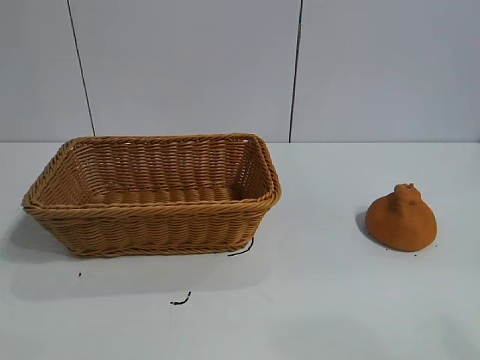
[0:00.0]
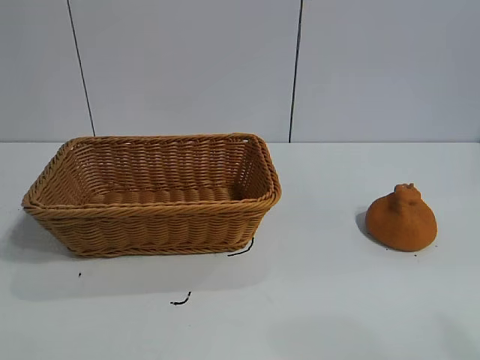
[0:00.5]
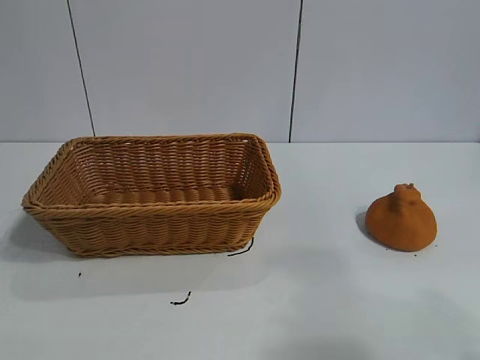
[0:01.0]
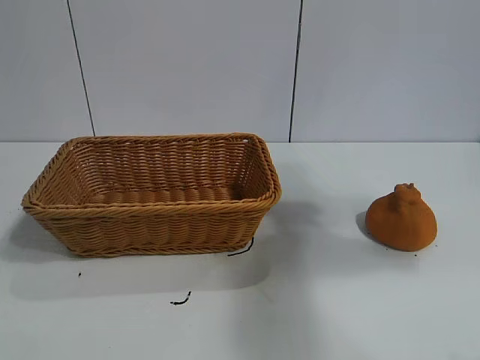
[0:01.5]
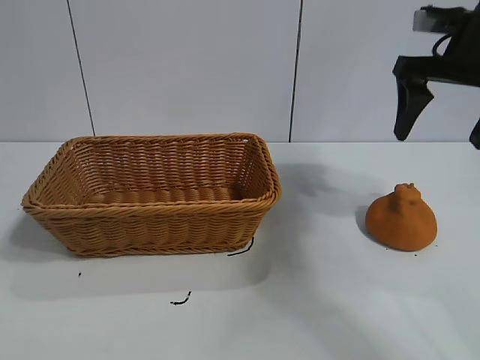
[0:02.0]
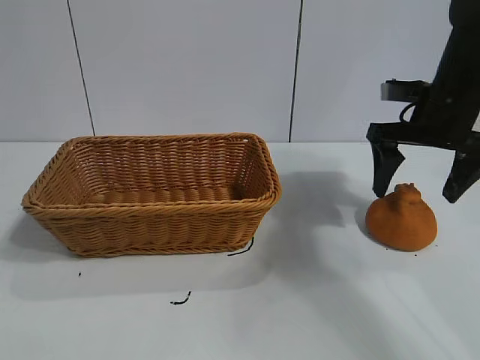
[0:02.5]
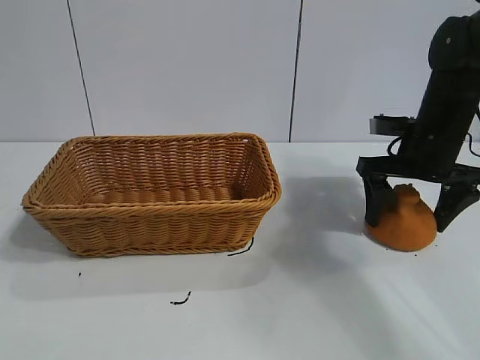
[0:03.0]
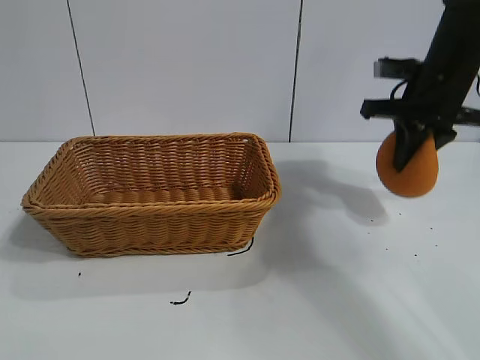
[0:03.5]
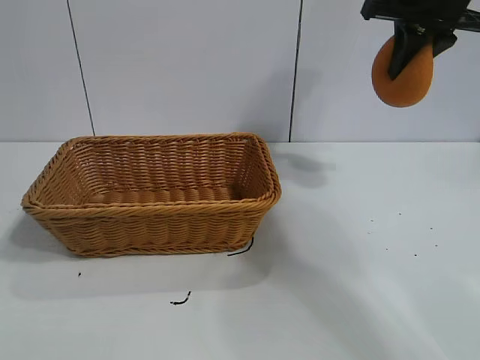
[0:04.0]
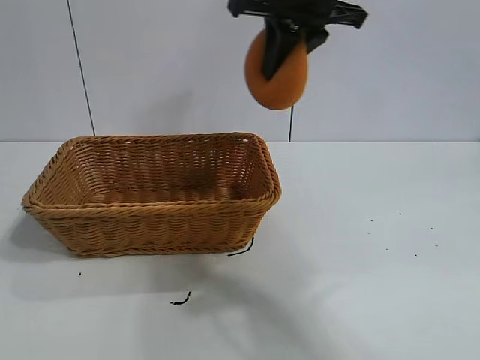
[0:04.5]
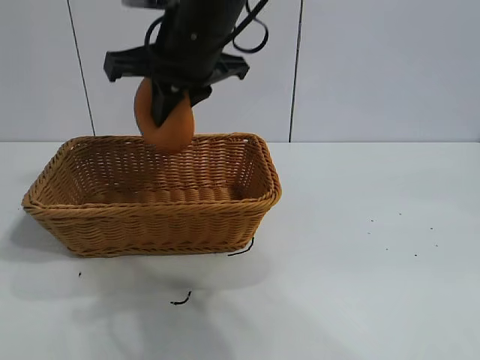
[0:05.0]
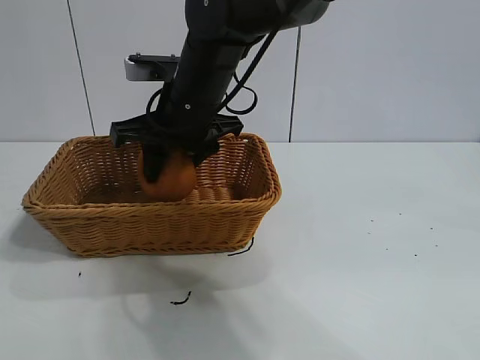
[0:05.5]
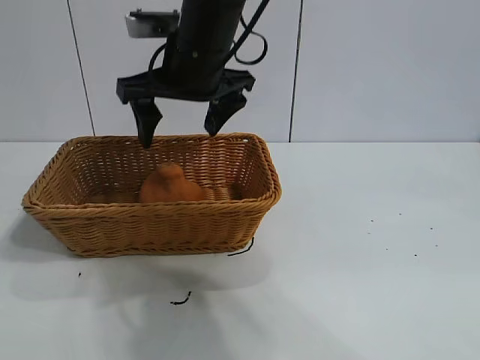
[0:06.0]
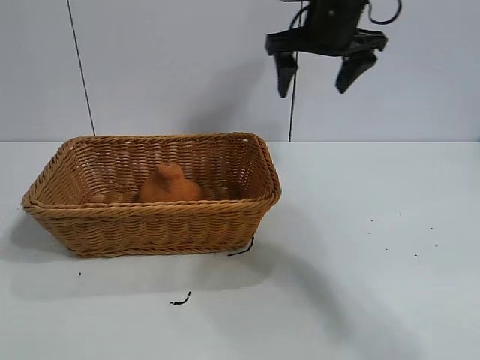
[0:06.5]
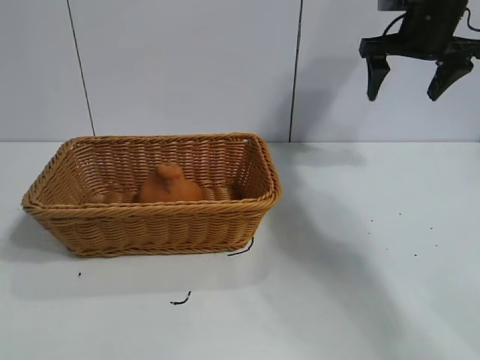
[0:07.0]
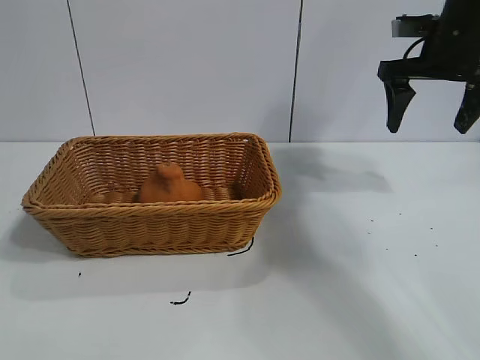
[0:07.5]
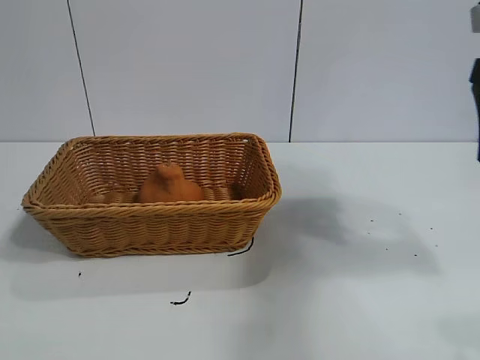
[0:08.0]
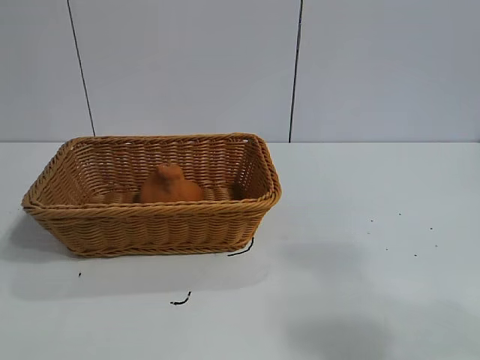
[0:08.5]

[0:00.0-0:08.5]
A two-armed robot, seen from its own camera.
Task of the whole recording: pick up the orange and put it into the basket.
Step, 0:01.0 to 0:03.0: Grasp the orange with right gripper.
Step, 0:03.5 to 0:05.5: Place the orange in the basket with right gripper.

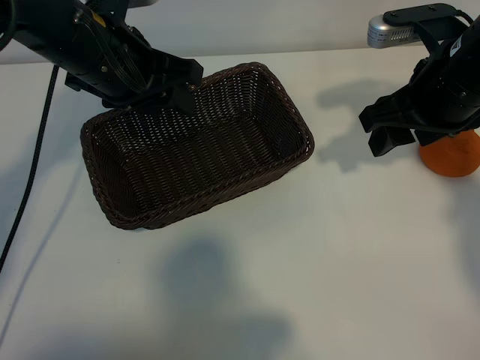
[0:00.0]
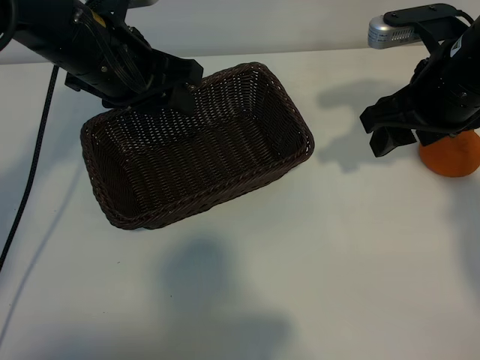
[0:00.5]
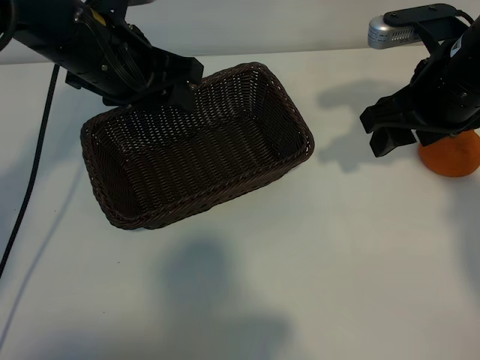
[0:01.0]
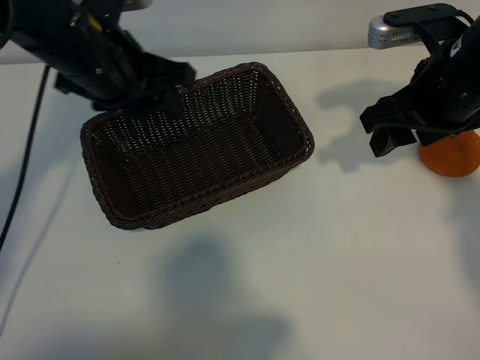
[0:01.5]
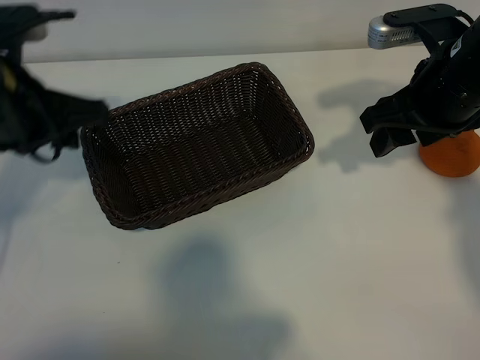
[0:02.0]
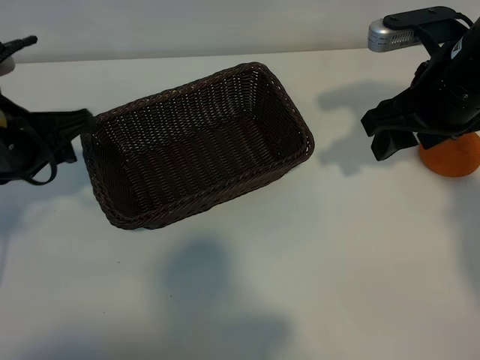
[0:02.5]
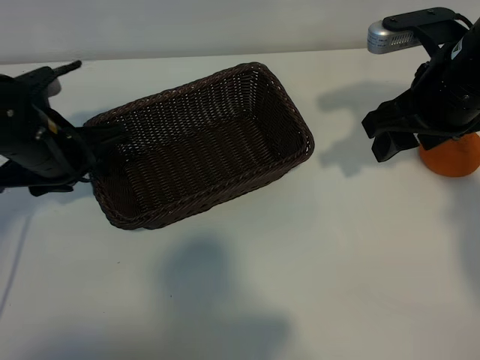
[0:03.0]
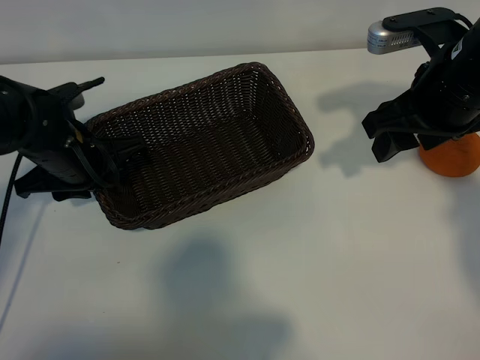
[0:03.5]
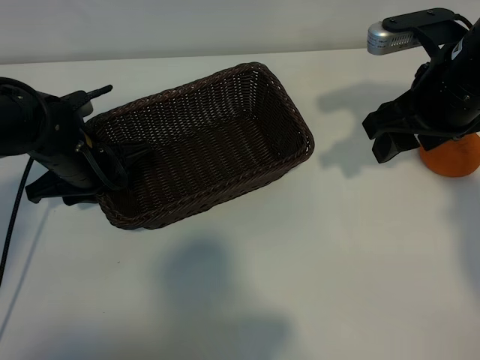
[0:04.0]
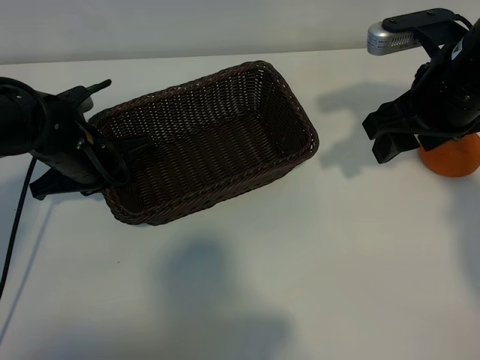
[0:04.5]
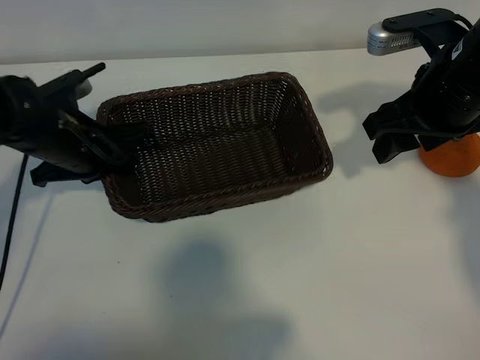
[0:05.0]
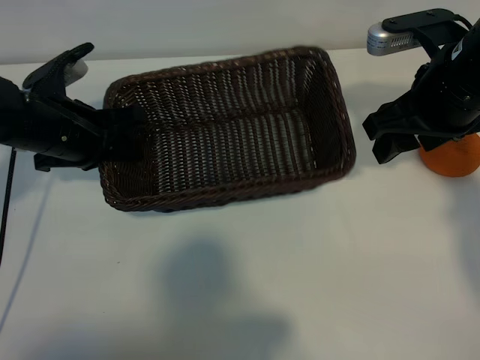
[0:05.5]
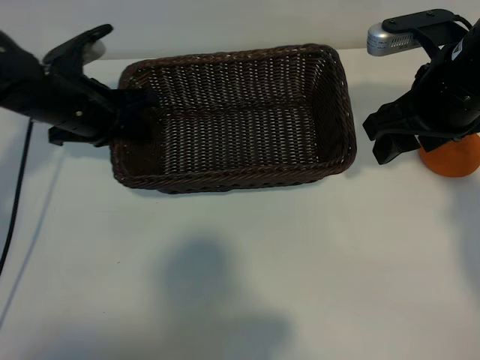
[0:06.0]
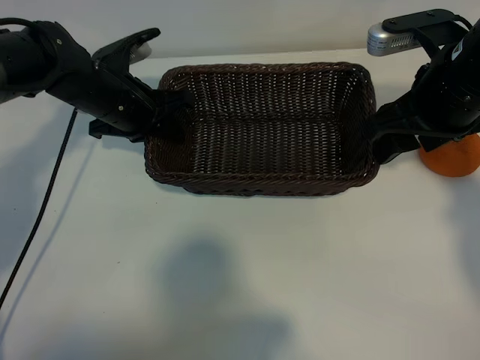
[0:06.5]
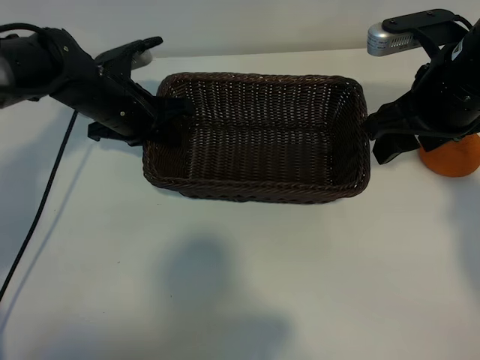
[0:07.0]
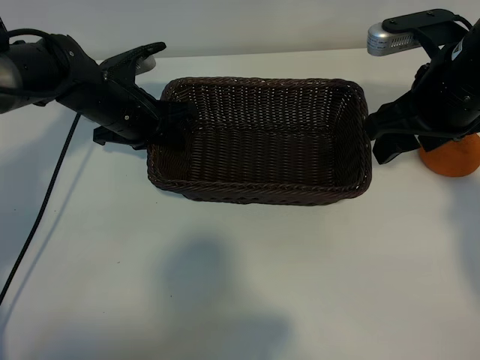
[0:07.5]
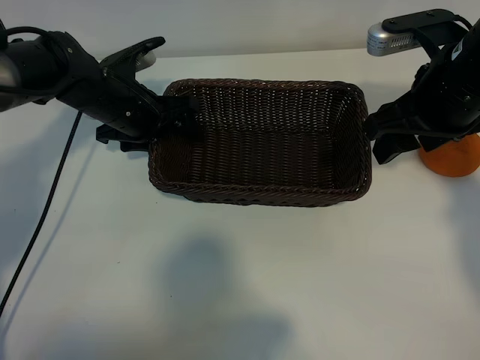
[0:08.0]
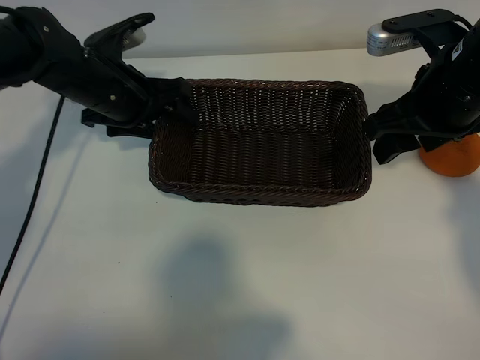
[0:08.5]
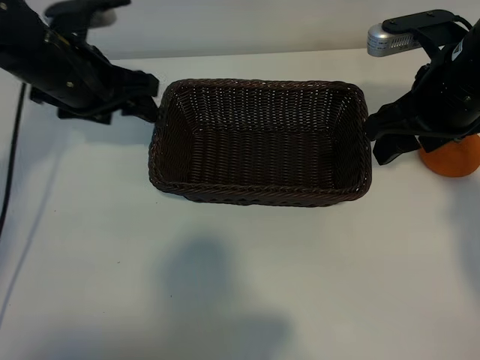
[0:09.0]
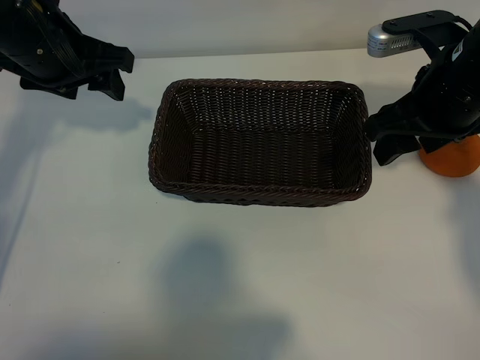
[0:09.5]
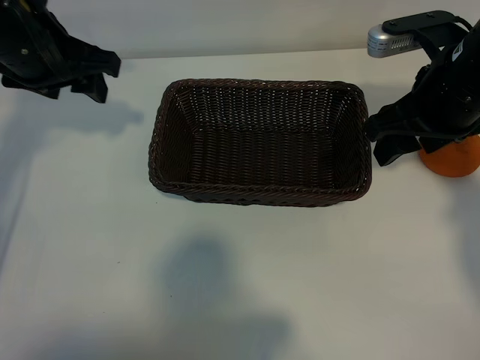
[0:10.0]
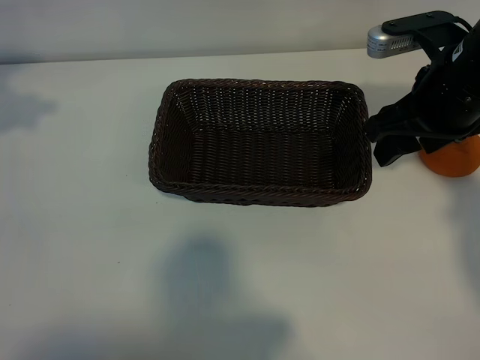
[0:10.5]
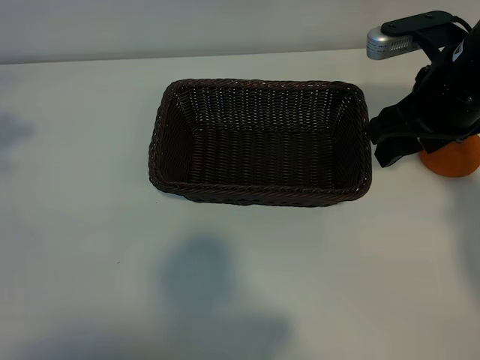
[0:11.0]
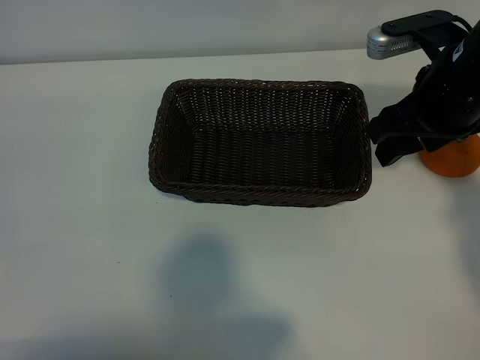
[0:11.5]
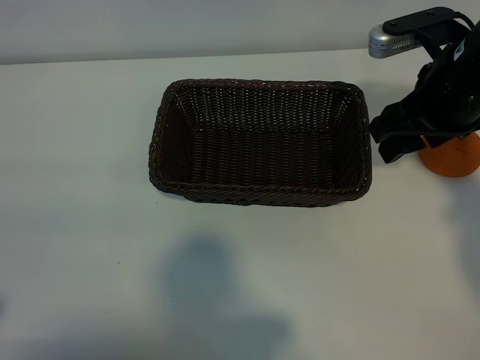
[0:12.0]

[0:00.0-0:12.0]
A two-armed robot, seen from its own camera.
Task of the whole recording: pick up the orange and put it into the basket.
Step, 0:01.0 to 0:04.5: Grasp the basket with left gripper.
Step, 0:05.0 to 0:07.5: Place the basket in the center of view with left gripper.

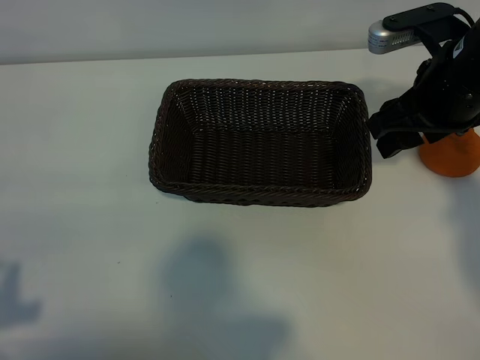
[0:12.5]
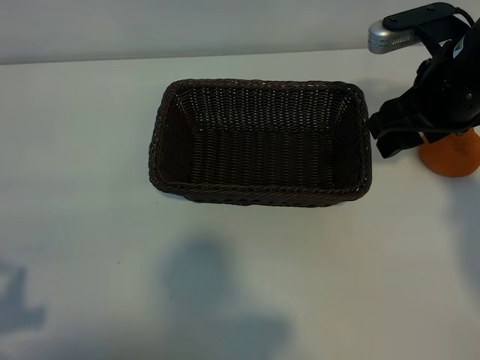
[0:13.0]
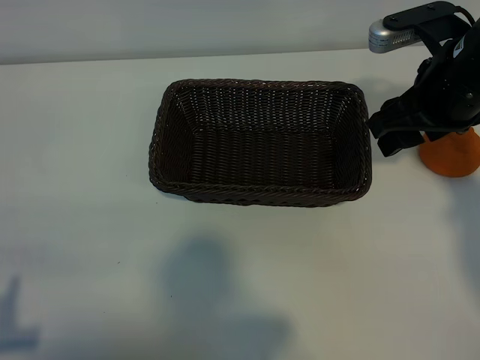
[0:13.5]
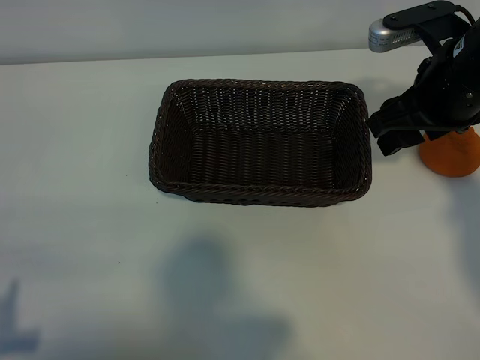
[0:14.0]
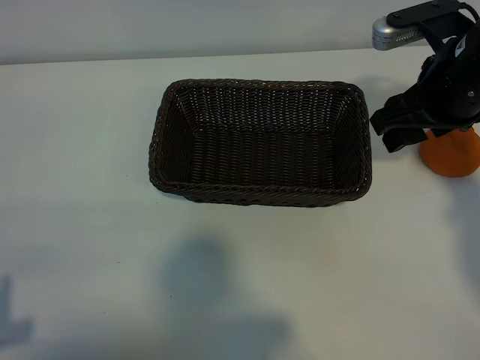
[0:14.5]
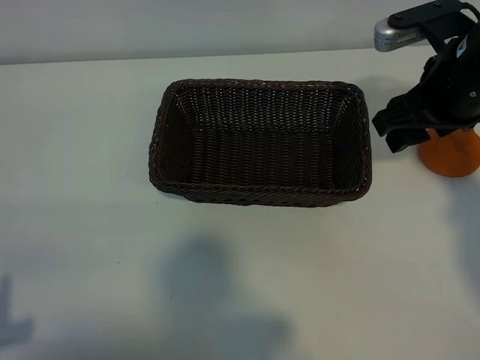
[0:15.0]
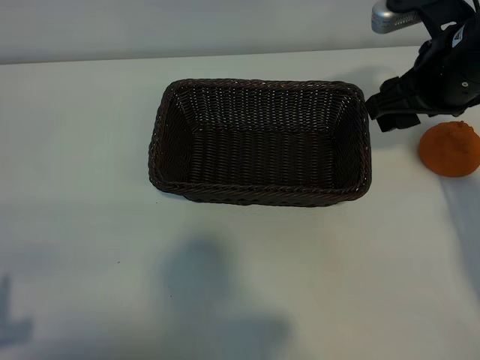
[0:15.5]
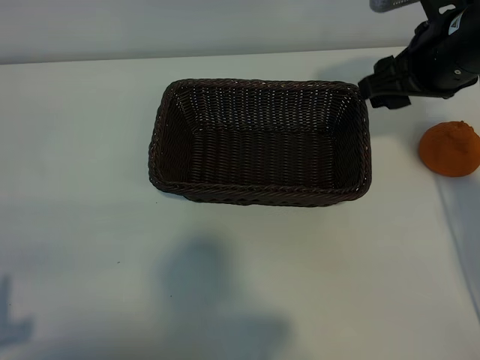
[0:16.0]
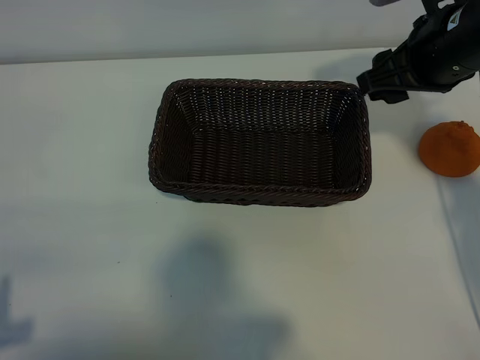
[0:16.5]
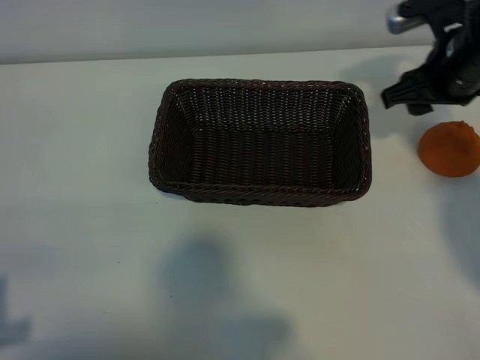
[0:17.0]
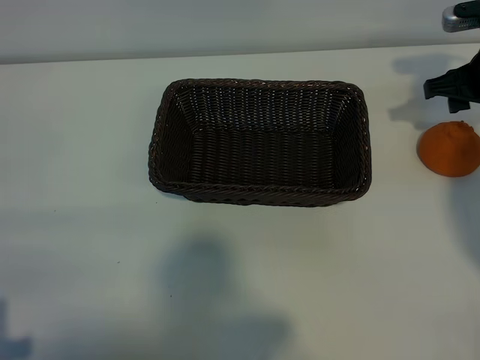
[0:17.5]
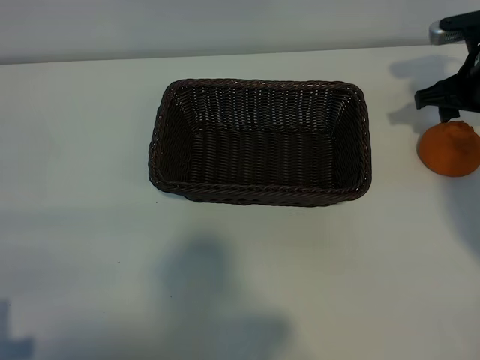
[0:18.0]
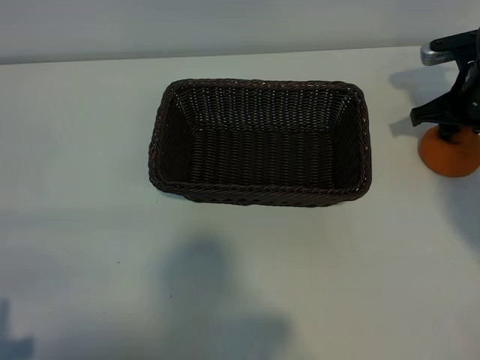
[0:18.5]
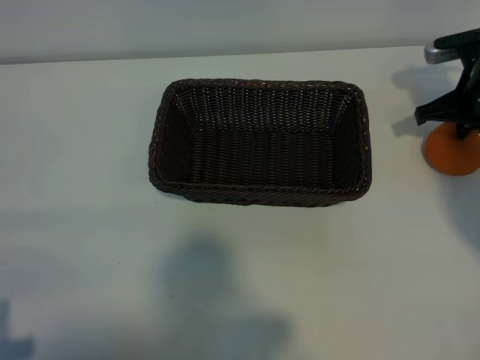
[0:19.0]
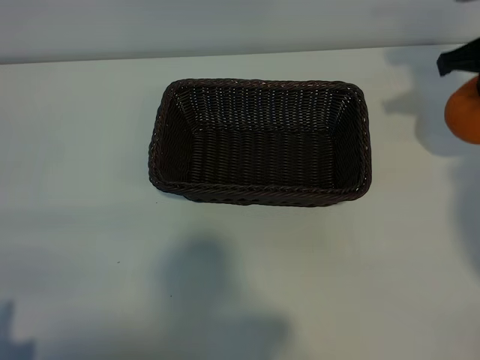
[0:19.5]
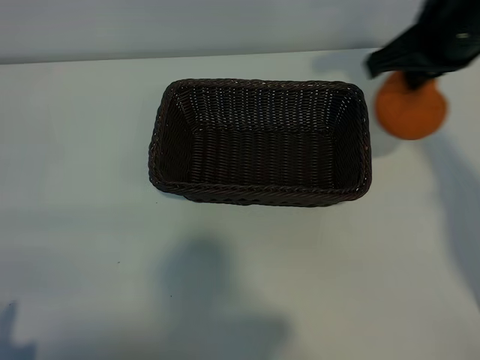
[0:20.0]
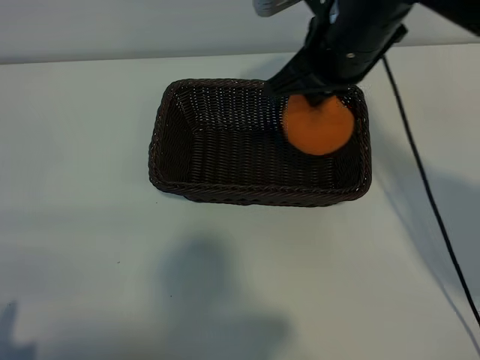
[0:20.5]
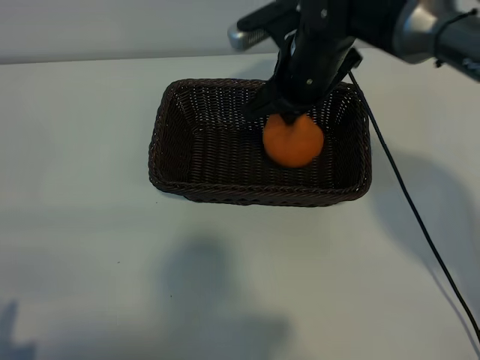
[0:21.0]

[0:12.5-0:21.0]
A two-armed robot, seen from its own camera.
Task of the whole recording: pick up the orange and put it into the basket.
Step, 0:12.5 to 0:18.5: Grasp the orange with right gripper.
